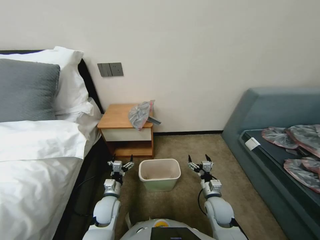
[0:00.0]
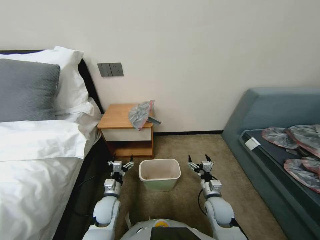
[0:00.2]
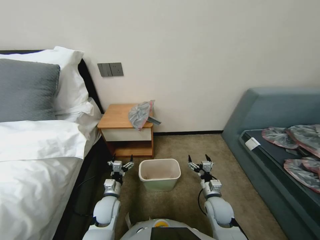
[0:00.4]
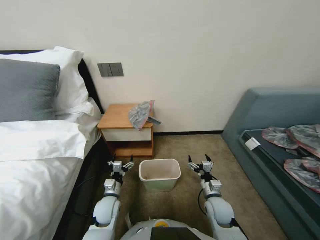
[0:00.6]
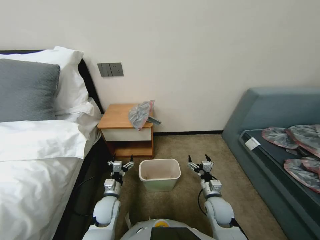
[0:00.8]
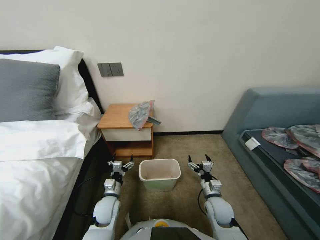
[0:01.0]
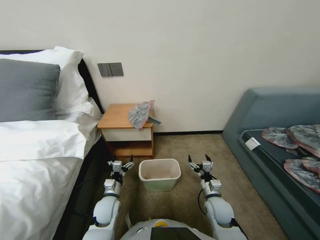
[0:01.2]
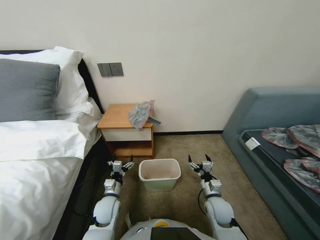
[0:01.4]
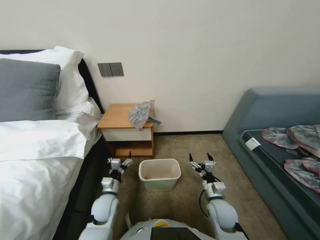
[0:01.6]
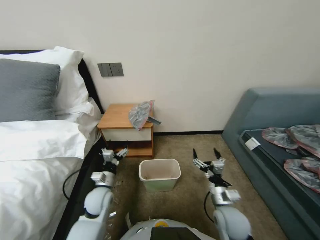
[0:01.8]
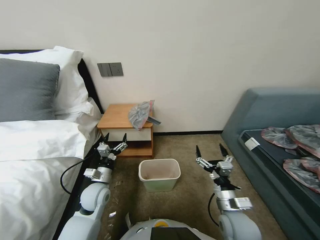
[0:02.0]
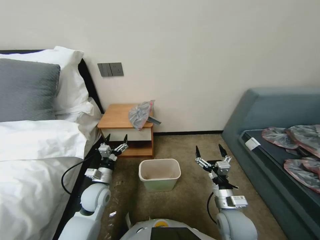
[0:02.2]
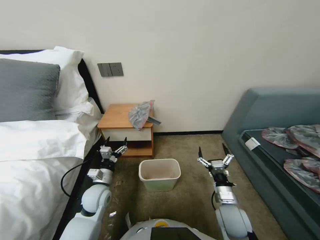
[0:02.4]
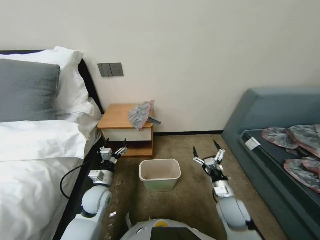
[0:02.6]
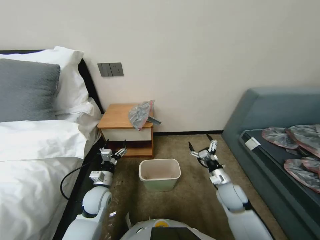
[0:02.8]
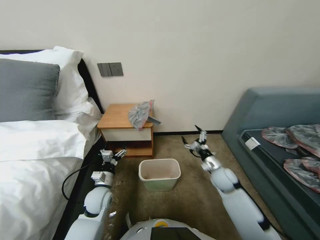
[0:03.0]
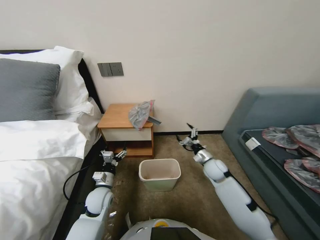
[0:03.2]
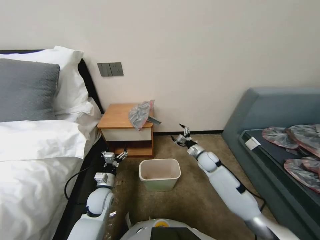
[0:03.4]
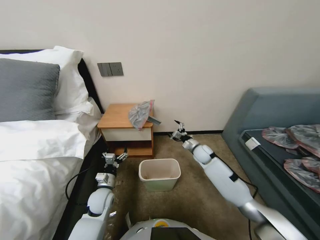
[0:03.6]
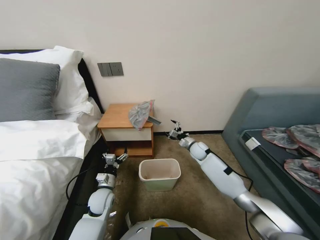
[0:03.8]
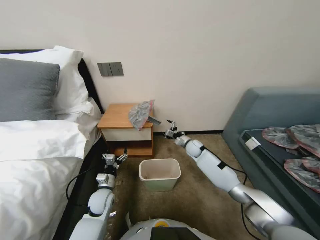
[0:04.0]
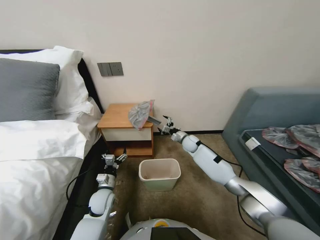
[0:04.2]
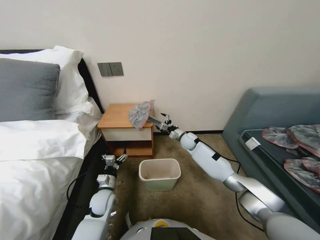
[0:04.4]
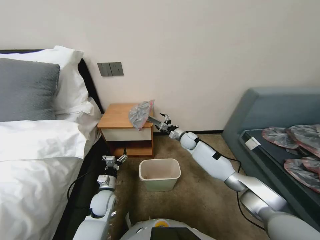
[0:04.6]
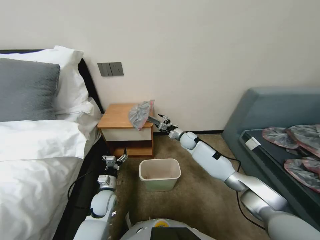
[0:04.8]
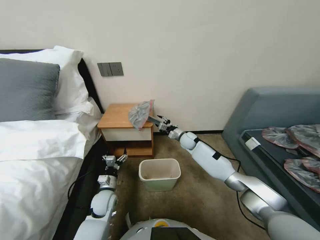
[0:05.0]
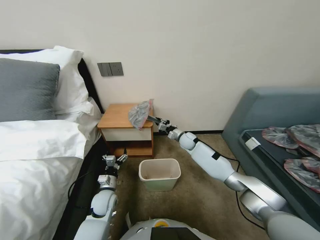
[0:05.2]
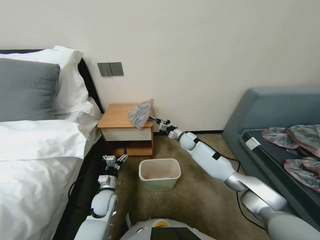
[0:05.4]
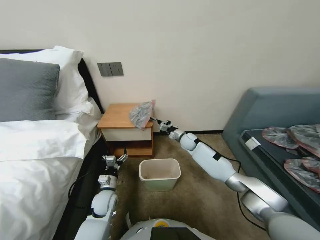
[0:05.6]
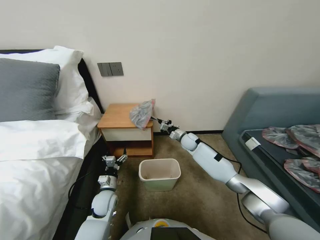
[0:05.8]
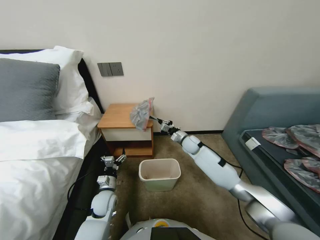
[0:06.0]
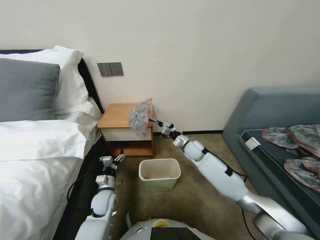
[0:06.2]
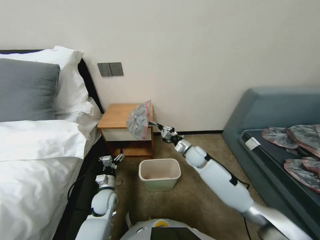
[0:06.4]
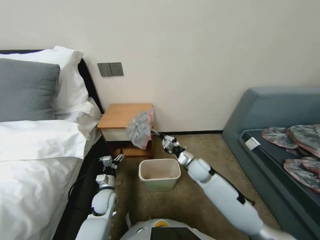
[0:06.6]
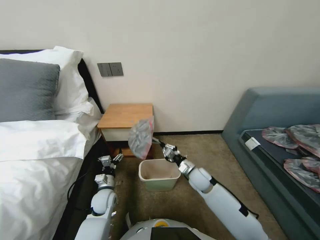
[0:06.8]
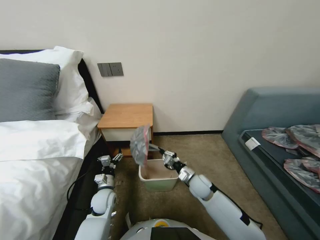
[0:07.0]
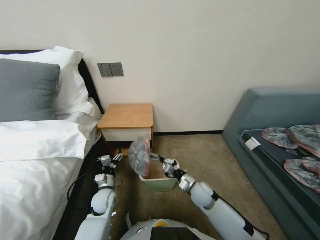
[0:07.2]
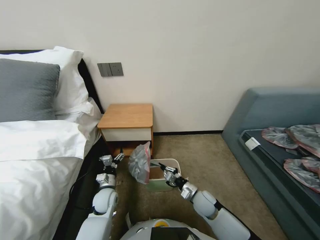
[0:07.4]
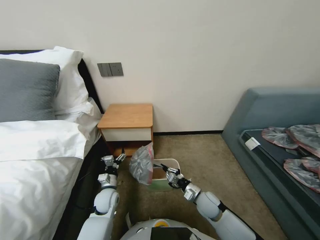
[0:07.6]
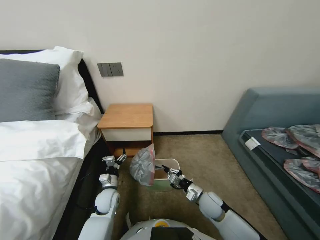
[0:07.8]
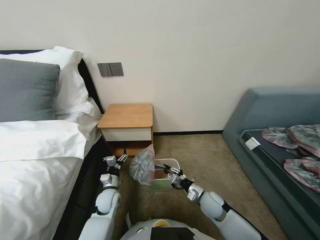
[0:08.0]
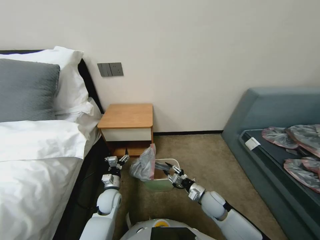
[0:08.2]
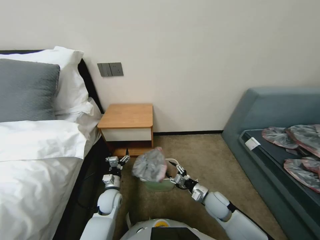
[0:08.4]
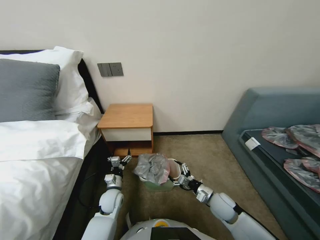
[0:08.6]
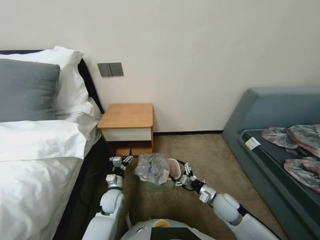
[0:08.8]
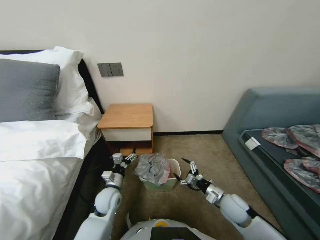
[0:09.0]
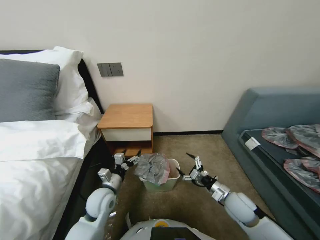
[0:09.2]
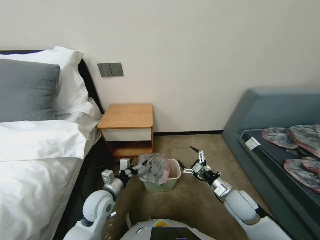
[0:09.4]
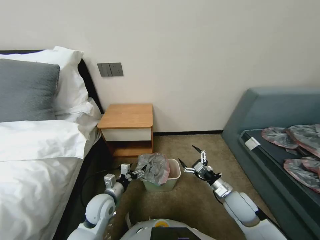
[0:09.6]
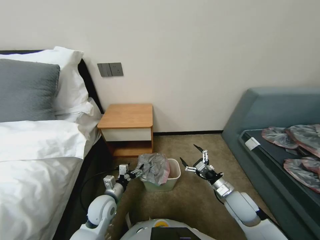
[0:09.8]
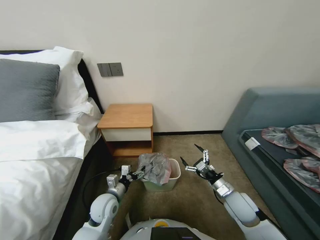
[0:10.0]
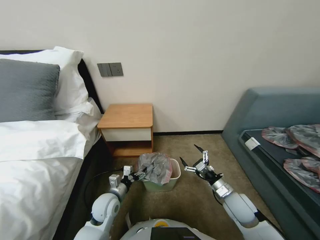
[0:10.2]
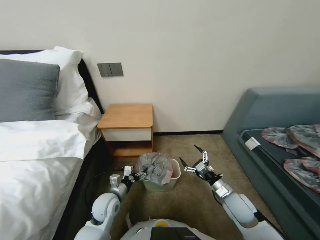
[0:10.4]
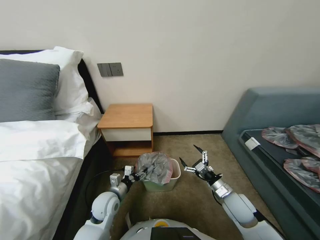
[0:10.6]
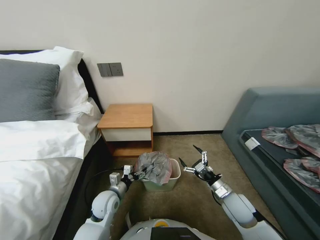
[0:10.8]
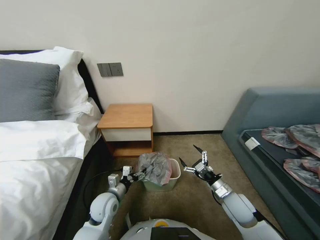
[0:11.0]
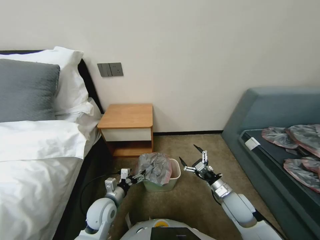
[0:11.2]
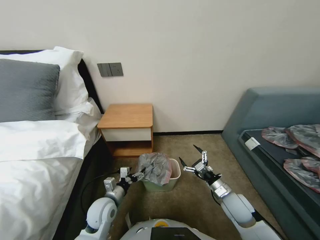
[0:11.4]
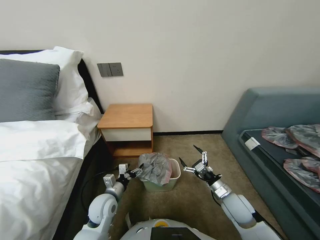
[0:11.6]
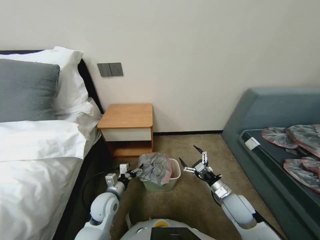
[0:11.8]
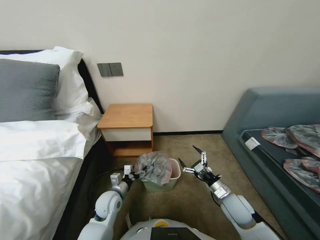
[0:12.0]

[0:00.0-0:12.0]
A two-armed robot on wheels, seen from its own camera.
Task of the whole recording: Pick up the garbage bag from the table and place it over the trash can.
0:01.6 to 0:03.0: The right gripper goes roughly 10 cm forward, to the right and upward; the left gripper shifts by some 5 cm.
0:03.0 to 0:04.4: The right gripper goes roughly 25 cm forward and to the left.
0:04.4 to 0:06.0: The right gripper closes its fingers.
0:06.0 to 0:07.6: The right gripper travels backward by approximately 25 cm.
0:07.6 to 0:09.0: The right gripper is displaced to the right by about 10 cm, and opens up.
0:10.4 to 0:12.0: The grippers stay close to where they were, moving slightly.

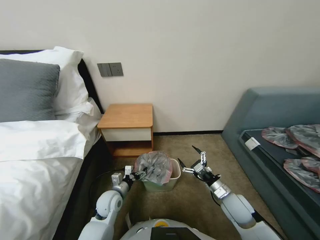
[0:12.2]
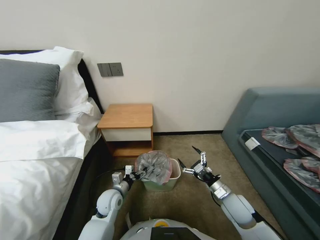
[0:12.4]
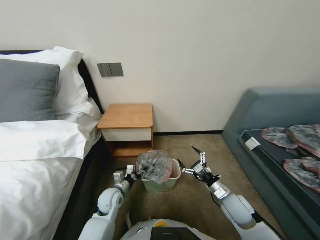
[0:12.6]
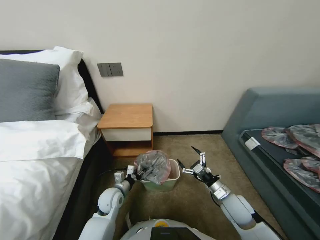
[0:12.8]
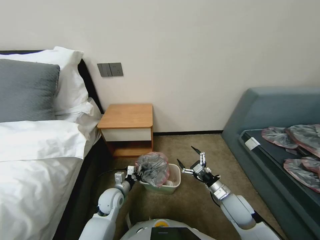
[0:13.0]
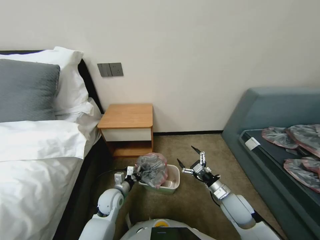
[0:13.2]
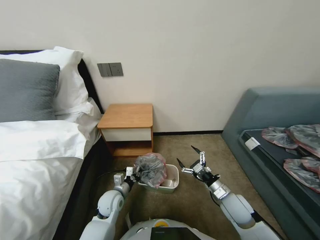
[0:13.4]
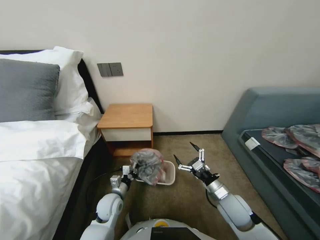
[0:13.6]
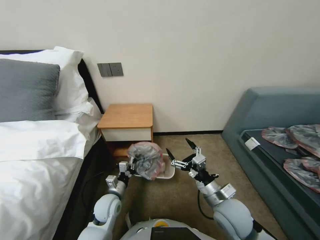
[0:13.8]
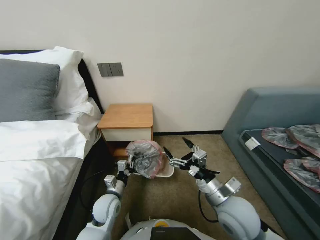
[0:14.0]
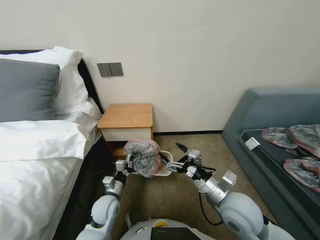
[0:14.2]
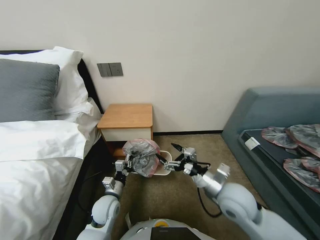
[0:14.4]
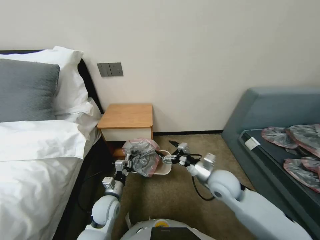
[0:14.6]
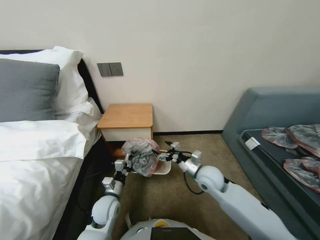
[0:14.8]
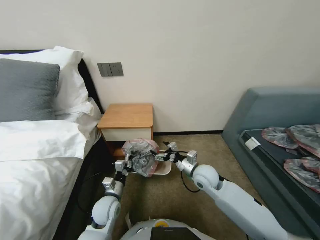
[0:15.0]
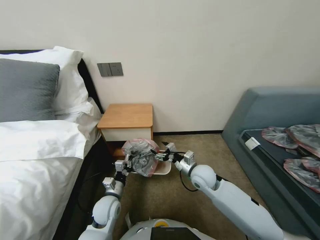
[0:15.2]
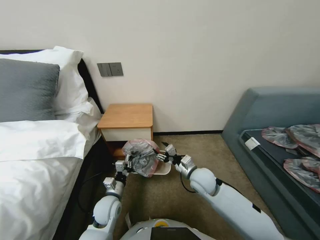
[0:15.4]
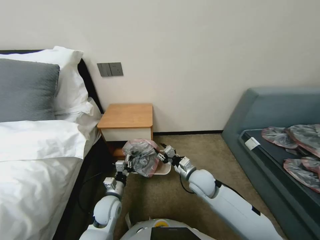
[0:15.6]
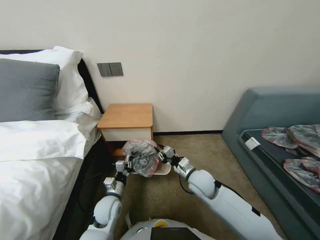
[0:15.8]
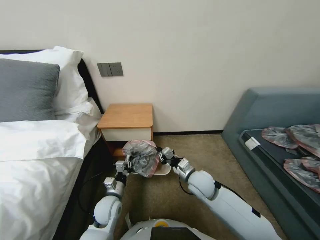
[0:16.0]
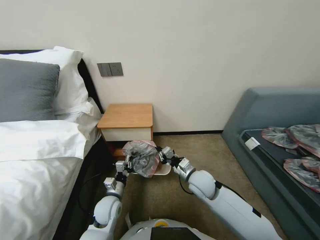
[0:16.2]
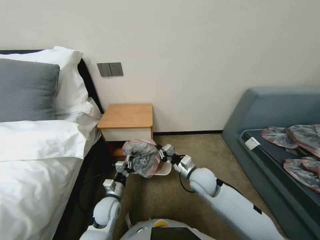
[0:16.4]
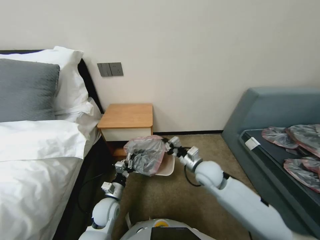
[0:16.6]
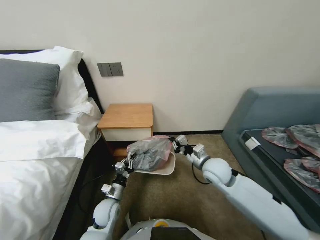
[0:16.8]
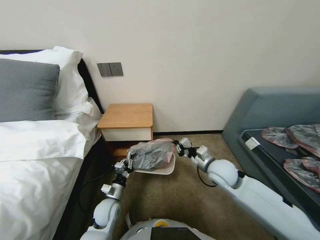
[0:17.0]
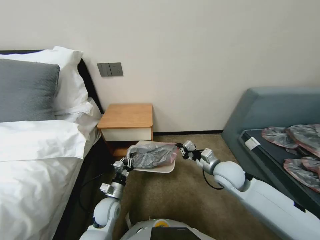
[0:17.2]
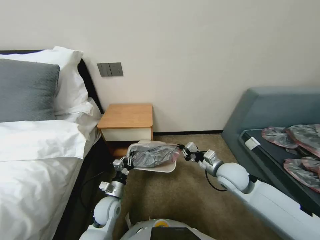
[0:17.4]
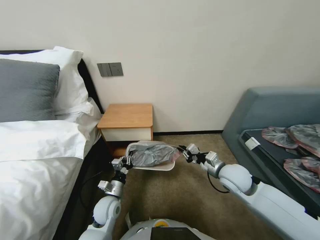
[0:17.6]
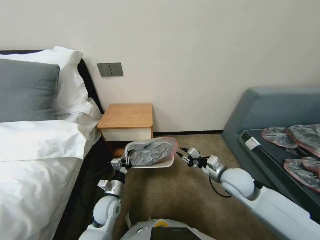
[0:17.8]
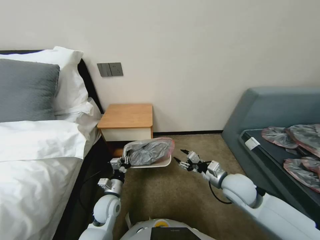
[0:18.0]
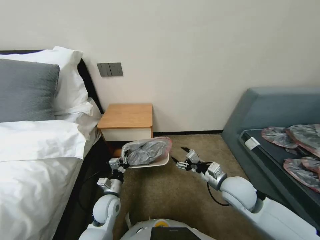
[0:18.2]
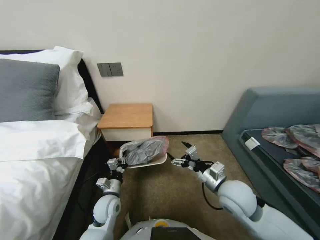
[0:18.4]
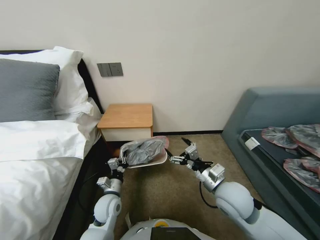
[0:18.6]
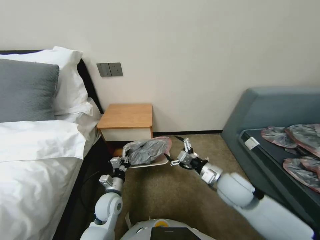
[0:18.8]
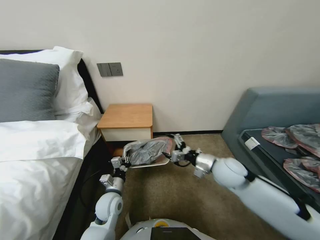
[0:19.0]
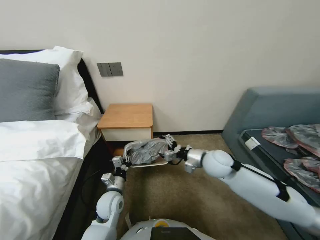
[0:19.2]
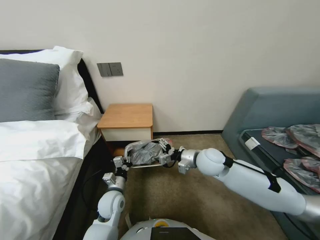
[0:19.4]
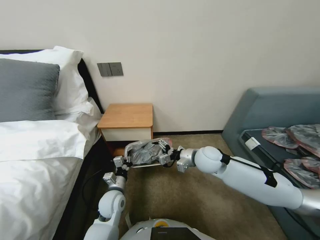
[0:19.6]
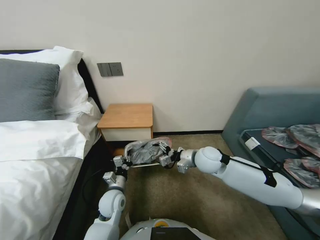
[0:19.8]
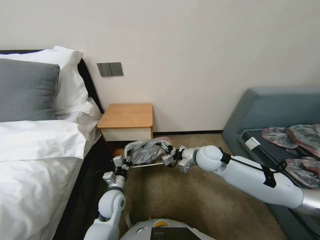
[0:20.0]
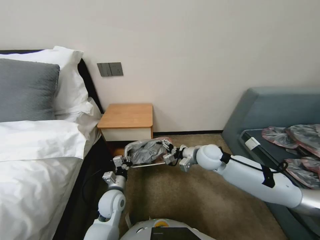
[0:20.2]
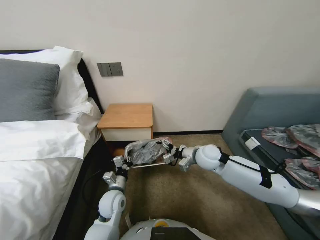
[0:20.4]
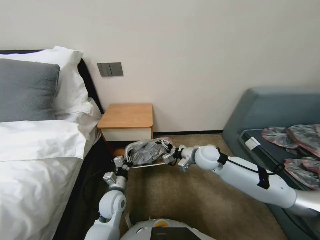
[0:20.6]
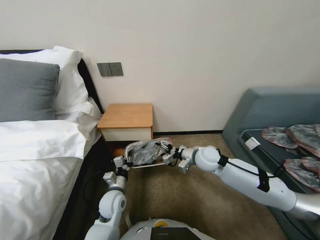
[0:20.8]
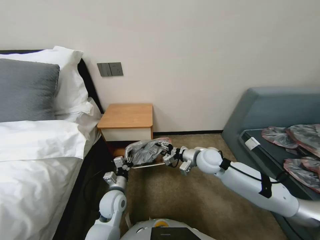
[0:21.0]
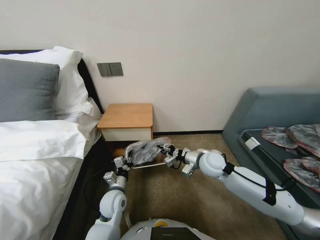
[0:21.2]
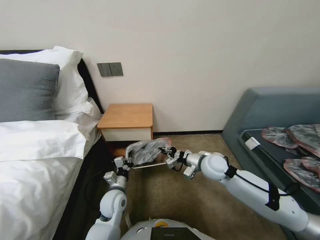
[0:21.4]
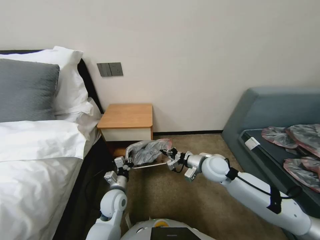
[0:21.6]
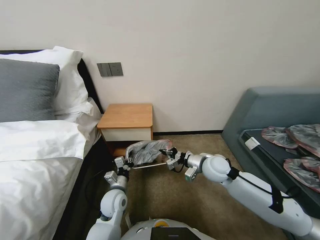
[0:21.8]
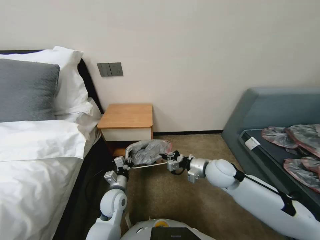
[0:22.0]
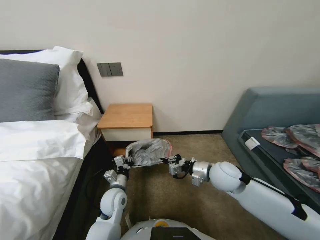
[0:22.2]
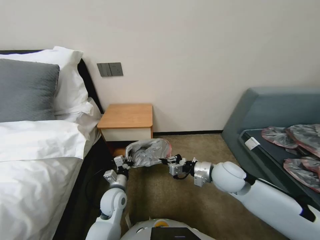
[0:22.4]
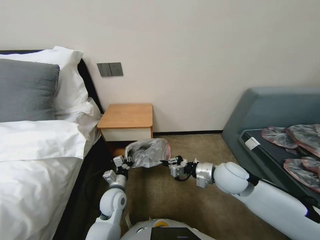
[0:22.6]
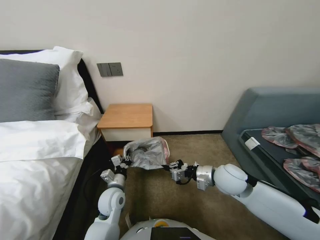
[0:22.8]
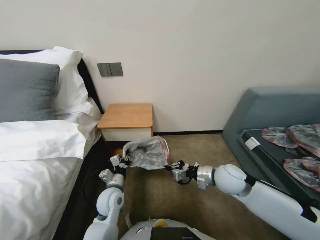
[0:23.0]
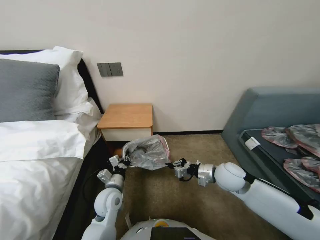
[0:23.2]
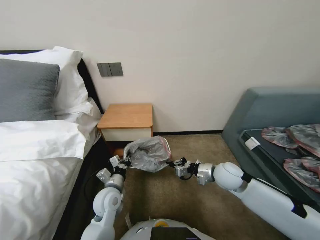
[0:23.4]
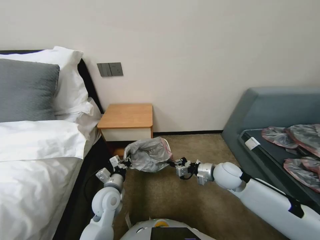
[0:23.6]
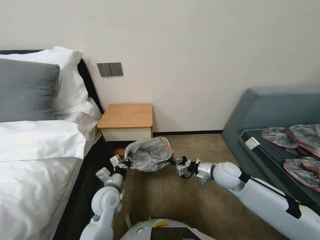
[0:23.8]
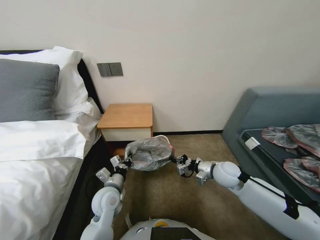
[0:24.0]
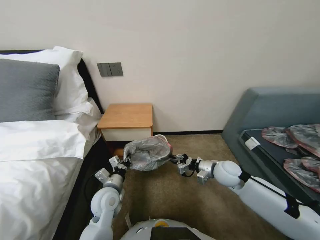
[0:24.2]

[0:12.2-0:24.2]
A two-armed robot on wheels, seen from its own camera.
Task of the whole recording: Pick up the garbage bag from the table and place it over the trash can.
0:12.2 to 0:13.8: The right gripper moves to the left and upward, approximately 10 cm. The left gripper closes its fingers.
0:13.8 to 0:15.2: The right gripper moves forward, some 10 cm.
0:15.2 to 0:16.6: The right gripper closes up.
0:16.6 to 0:18.2: The right gripper travels to the right and backward by roughly 10 cm, and opens.
0:18.2 to 0:19.8: The right gripper goes about 15 cm forward and to the left.
0:19.8 to 0:21.2: The right gripper closes its fingers.
0:21.2 to 0:22.6: The right gripper heads backward, covering some 5 cm, and closes its fingers.
0:22.6 to 0:24.2: The right gripper moves downward, approximately 5 cm.
